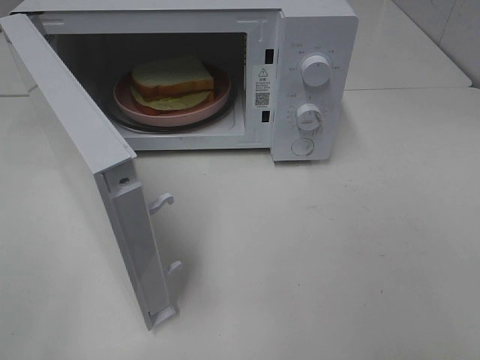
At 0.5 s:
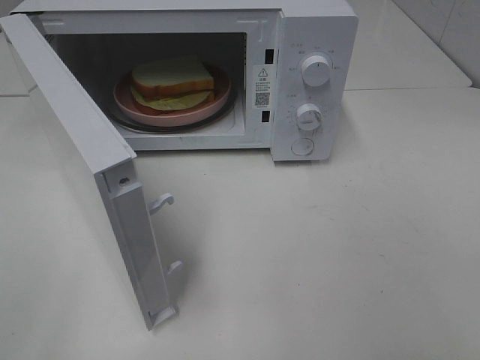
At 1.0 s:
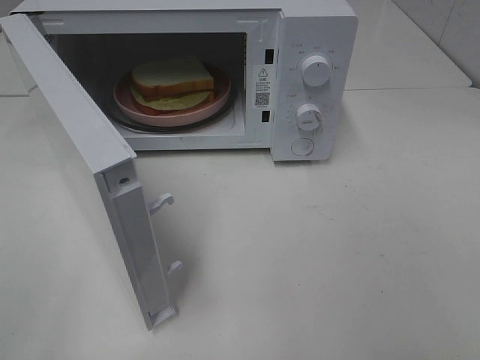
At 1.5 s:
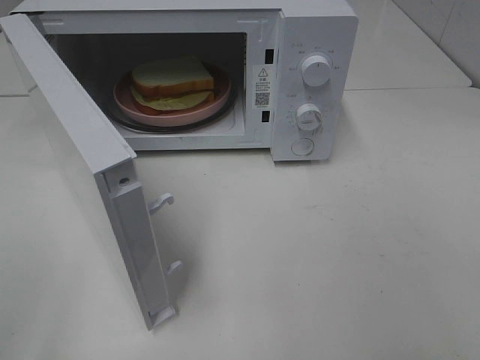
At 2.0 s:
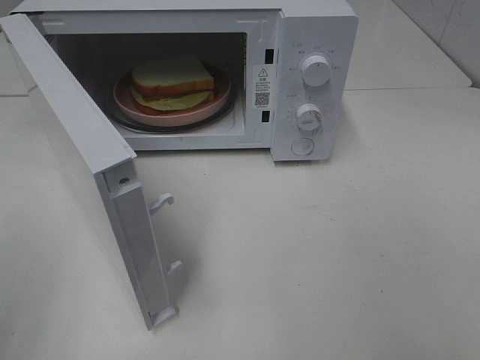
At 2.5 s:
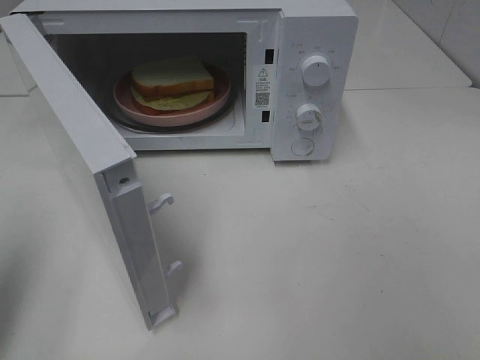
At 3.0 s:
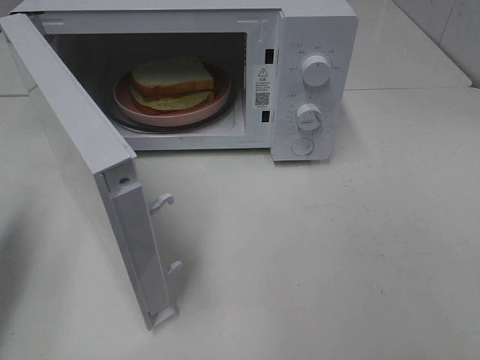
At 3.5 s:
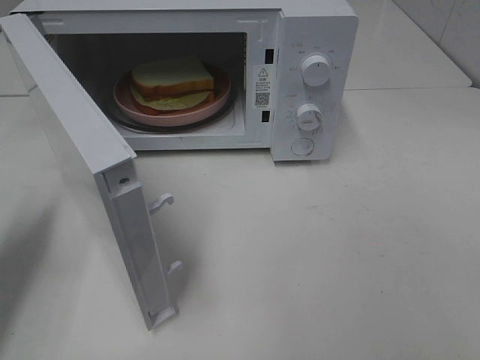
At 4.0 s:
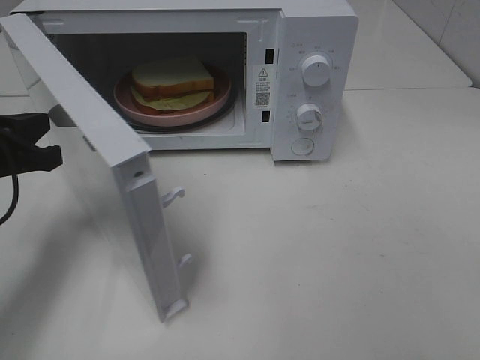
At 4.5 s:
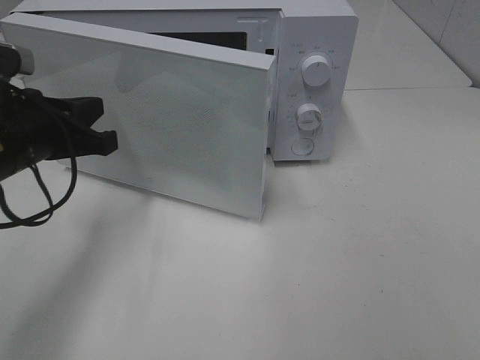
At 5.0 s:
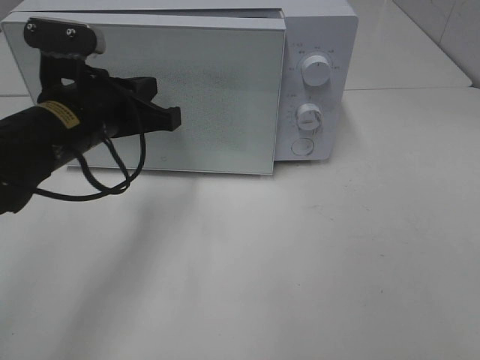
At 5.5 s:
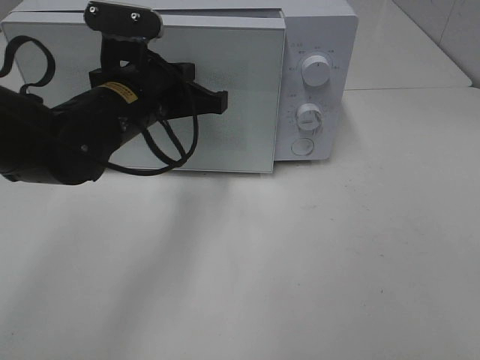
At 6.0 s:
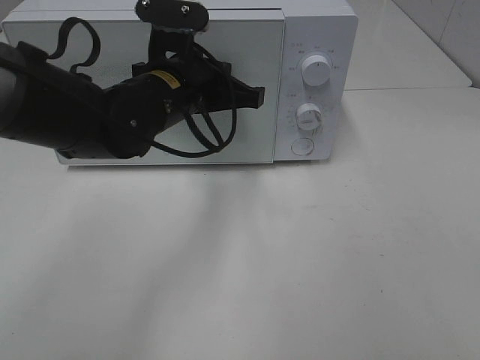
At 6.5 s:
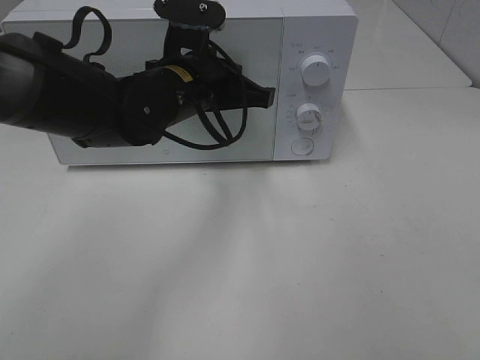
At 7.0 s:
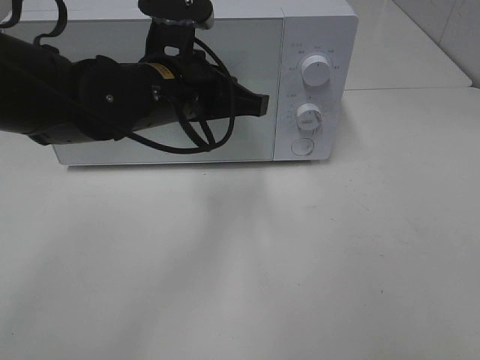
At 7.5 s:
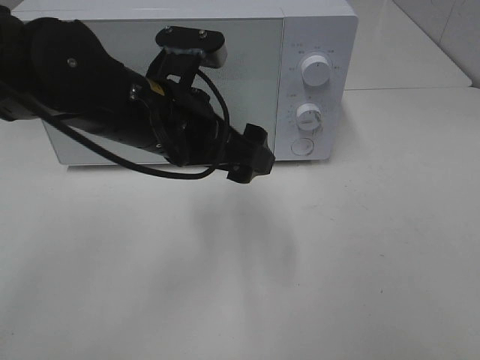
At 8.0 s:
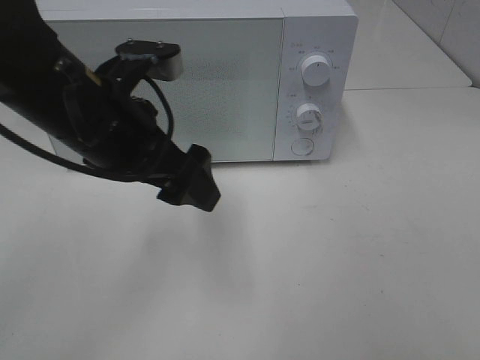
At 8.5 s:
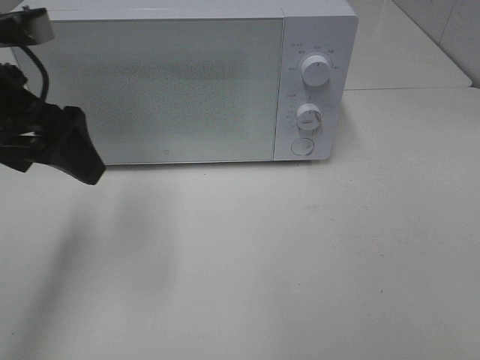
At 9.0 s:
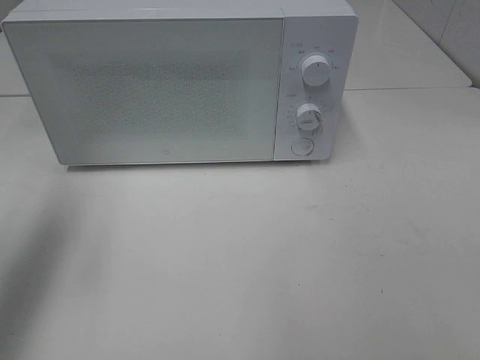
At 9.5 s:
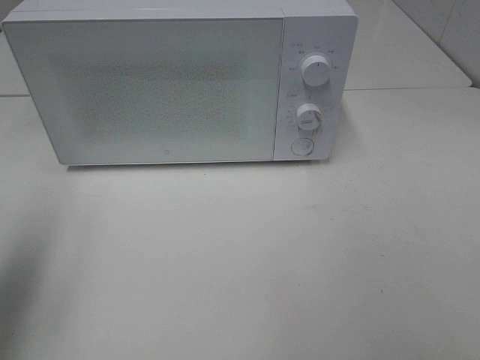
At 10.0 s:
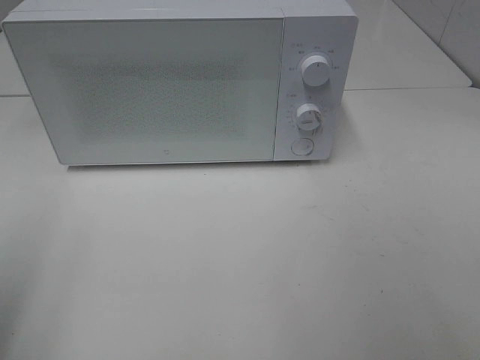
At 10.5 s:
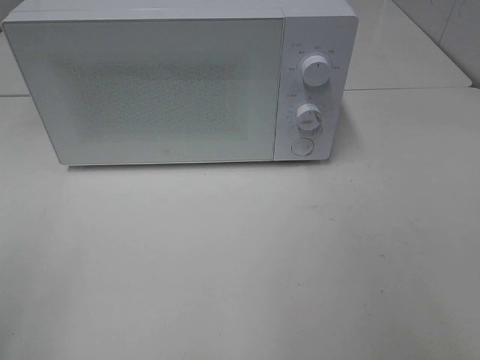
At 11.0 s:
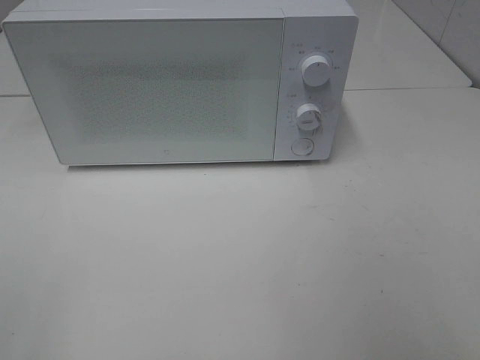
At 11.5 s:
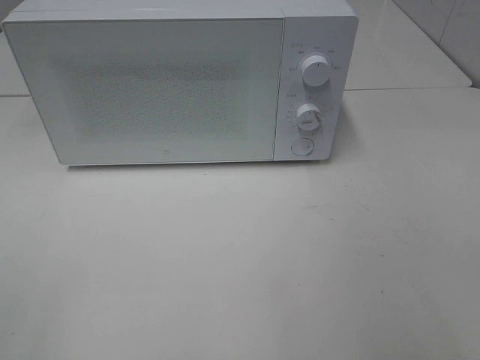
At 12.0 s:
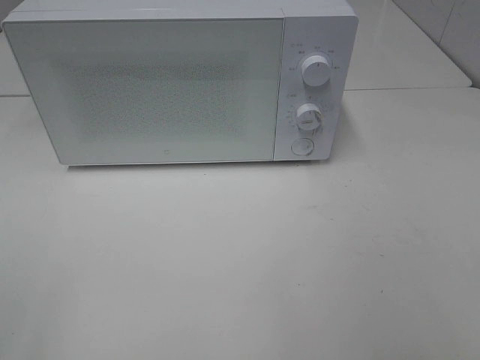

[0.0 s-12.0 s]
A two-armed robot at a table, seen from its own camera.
Task of the whole recording: Heat Sandwich.
Step, 0.0 to 7.5 s: Left hand: close the microwave door.
2.0 to 4.0 s: The left gripper heads forward and downward, covering approximately 20 cm, and closes its fingers.
4.0 to 6.0 s: The left gripper travels to the right and forward by approximately 20 cm.
6.0 to 8.0 s: The left gripper moves backward and to the left, roughly 10 cm, and opens its fingers.
8.0 to 10.0 s: The left gripper goes about 25 cm to the left and backward.

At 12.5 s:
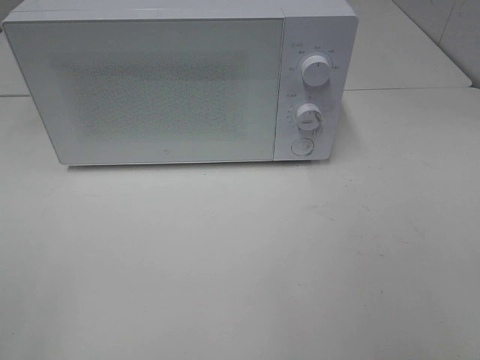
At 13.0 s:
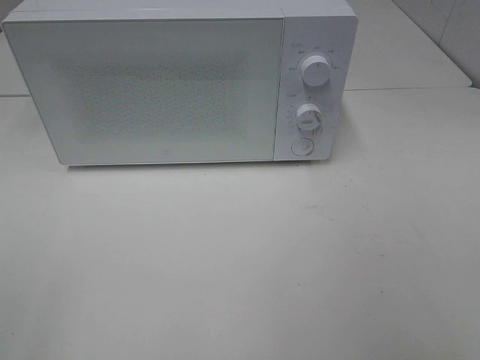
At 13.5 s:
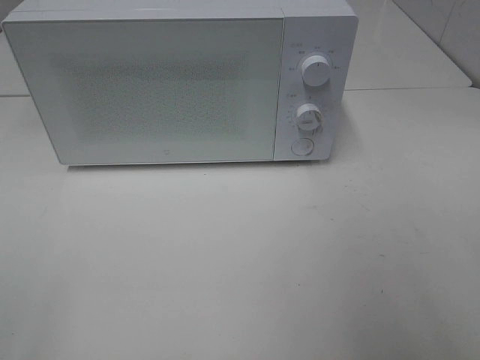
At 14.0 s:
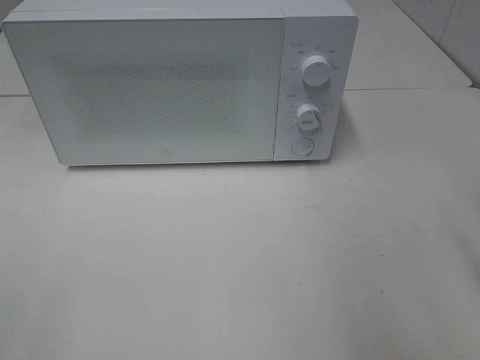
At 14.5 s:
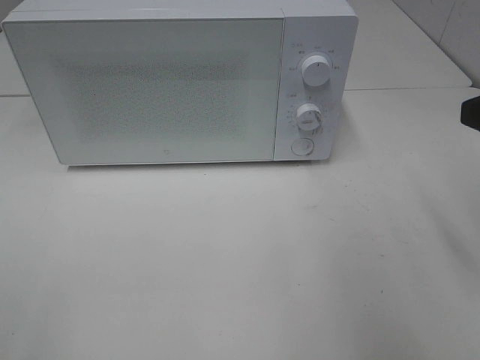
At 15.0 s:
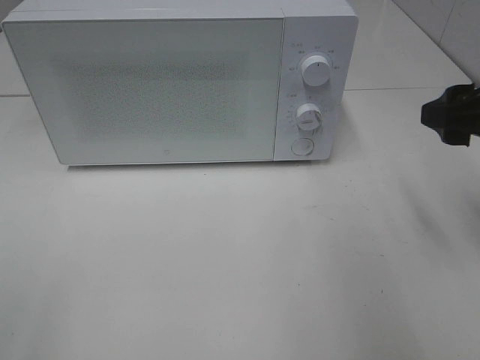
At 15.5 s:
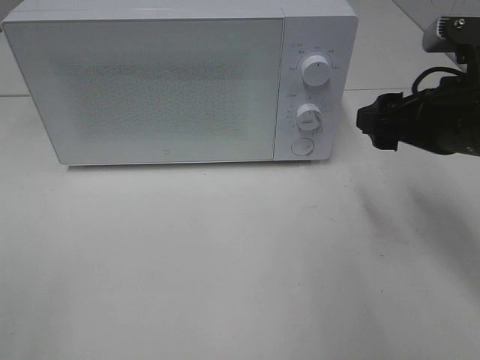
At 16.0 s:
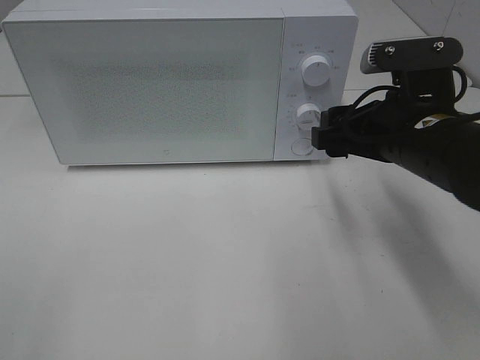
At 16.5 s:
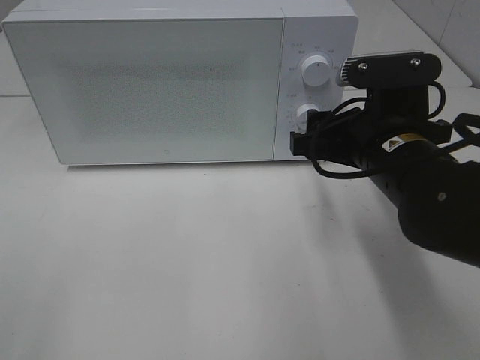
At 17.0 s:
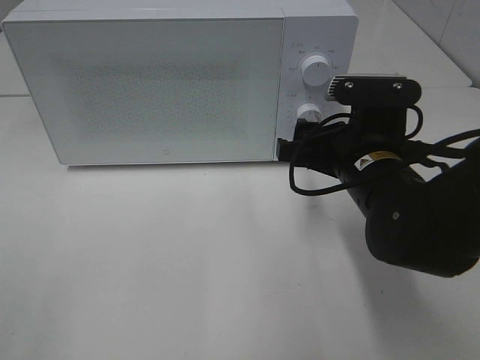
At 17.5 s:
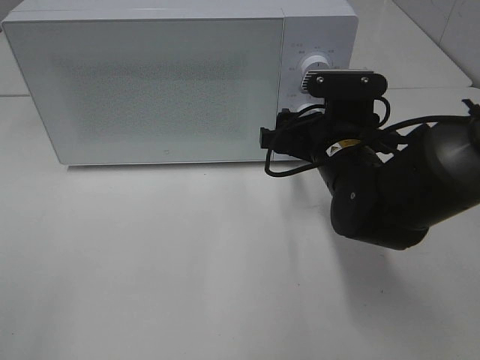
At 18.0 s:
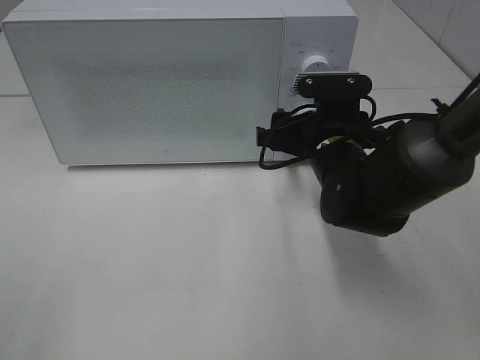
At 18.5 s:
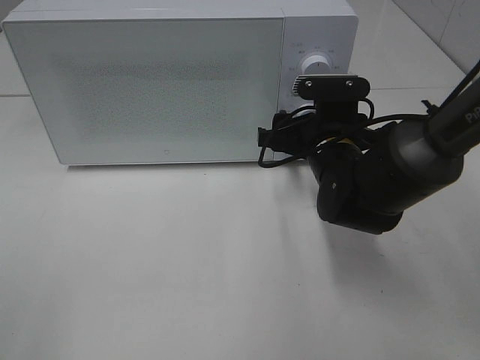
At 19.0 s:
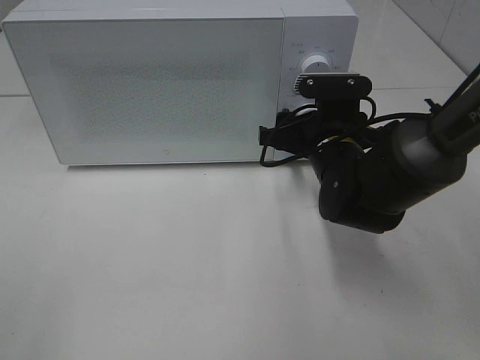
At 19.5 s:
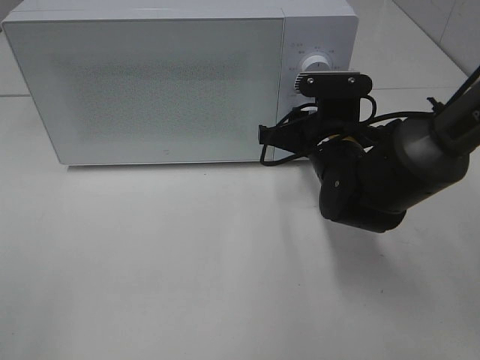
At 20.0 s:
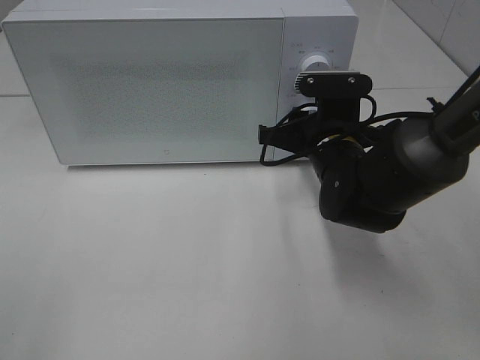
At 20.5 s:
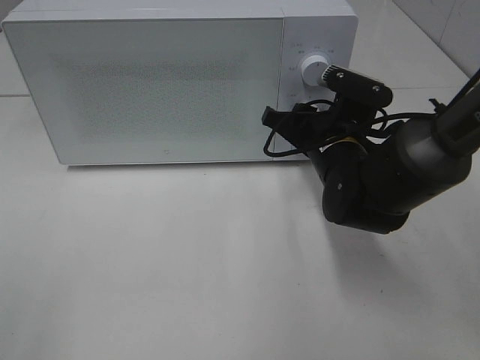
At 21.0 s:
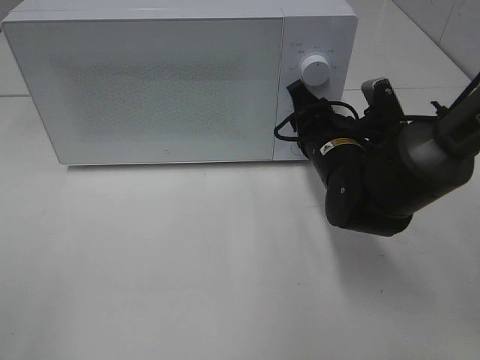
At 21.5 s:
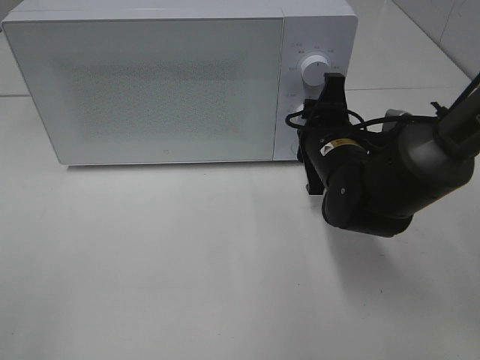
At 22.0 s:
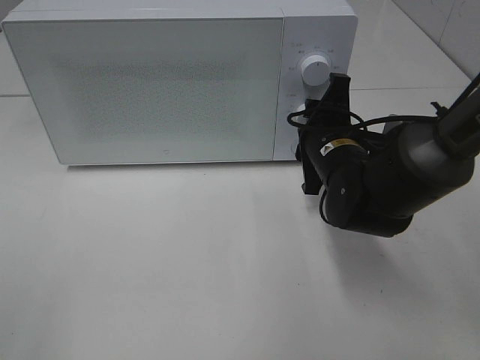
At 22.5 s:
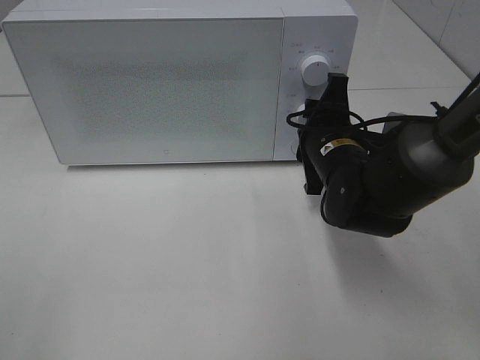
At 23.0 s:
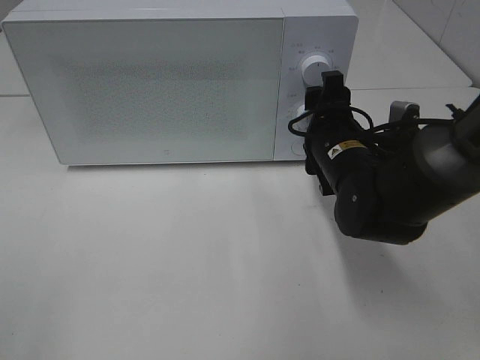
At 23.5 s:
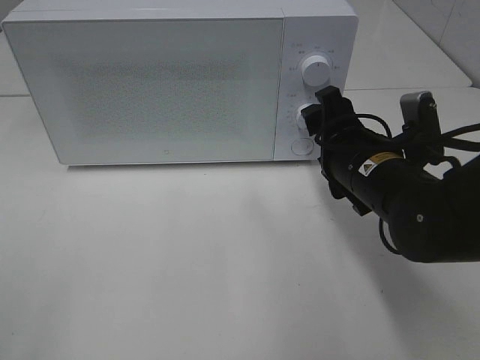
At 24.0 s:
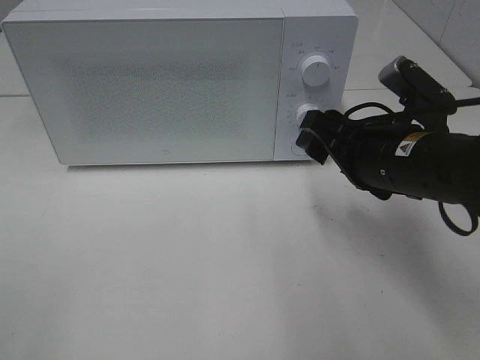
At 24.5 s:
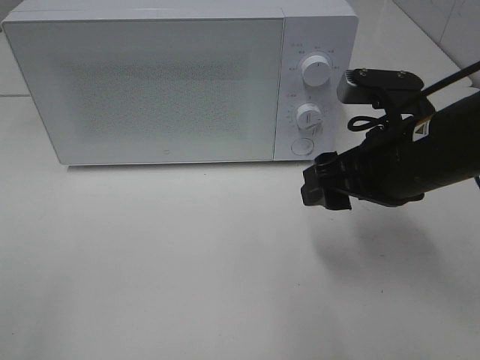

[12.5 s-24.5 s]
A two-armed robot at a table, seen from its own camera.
Task of the whole recording: Heat Sandwich.
Step, 12.5 to 23.0 s: Right hand: twist timer button.
14.5 to 16.5 s: The right gripper moves to the left, downward and forward, about 15 cm.
16.5 to 18.5 s: The right gripper shifts approximately 10 cm forward and downward.
18.5 to 20.5 s: The right gripper closes up.
22.5 to 24.5 s: The right gripper heads backward and upward, covering some 10 cm.

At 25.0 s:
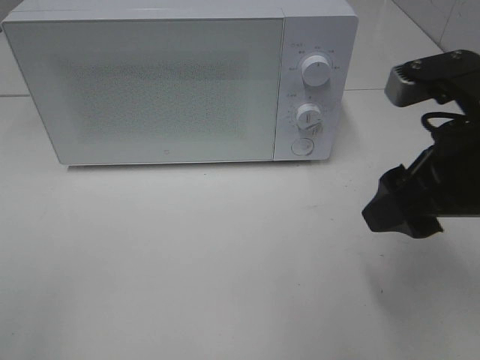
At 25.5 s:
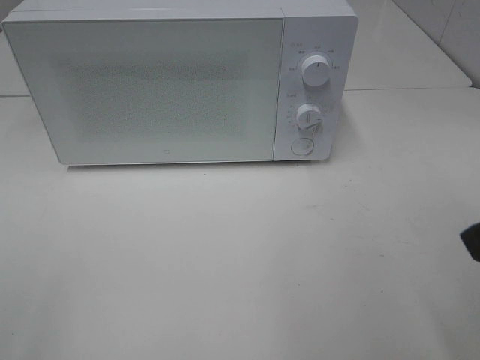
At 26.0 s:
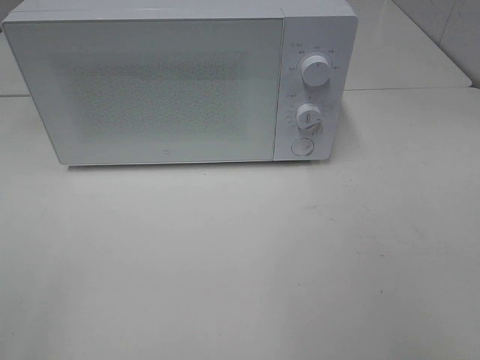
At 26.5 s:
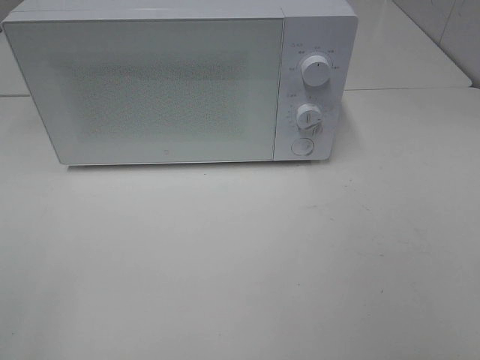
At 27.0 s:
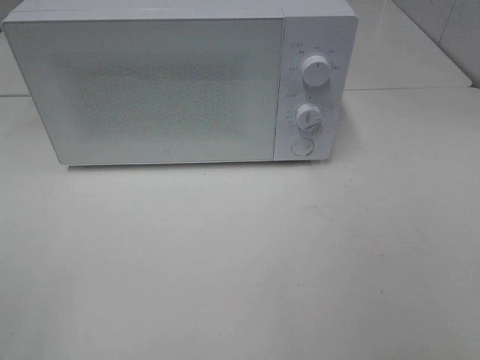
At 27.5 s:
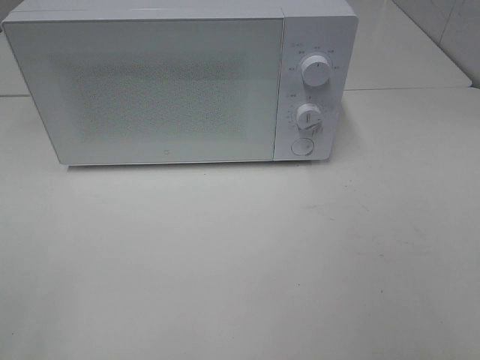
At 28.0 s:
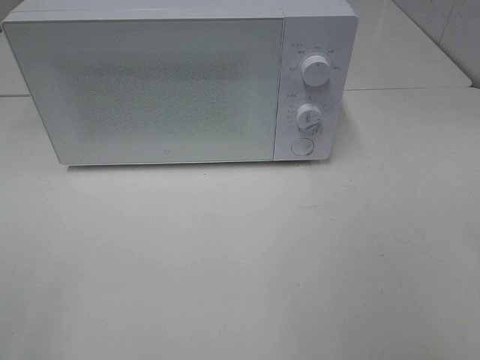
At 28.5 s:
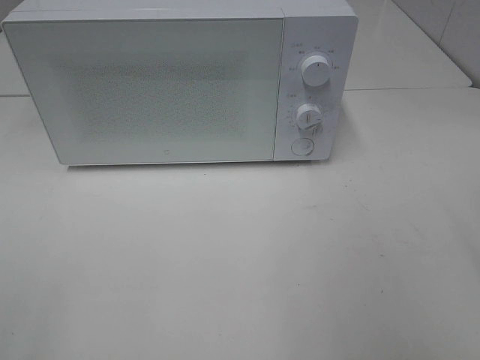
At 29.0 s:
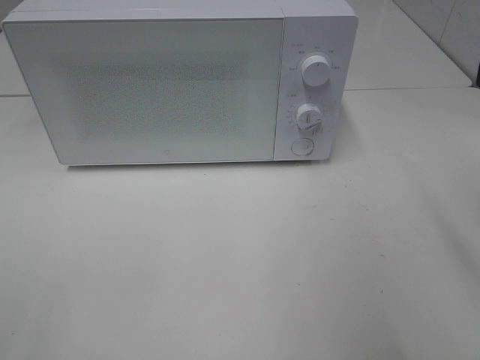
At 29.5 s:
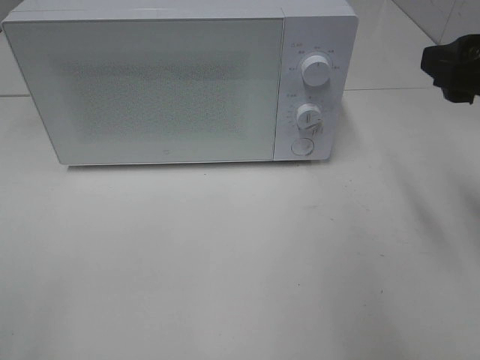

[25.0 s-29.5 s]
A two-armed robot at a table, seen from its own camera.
Task of the whole recording: Heat Sandwich.
25.0 to 27.0 s: The right gripper moves backward and to the right, some 20 cm.
27.0 to 29.5 s: The right gripper travels forward by some 20 cm.
